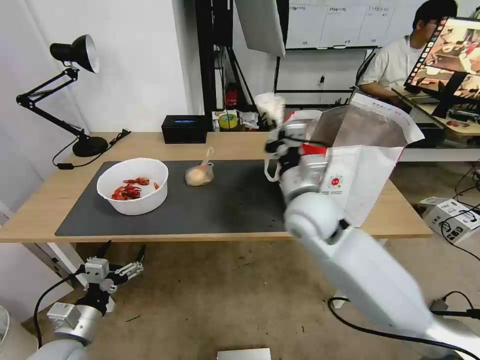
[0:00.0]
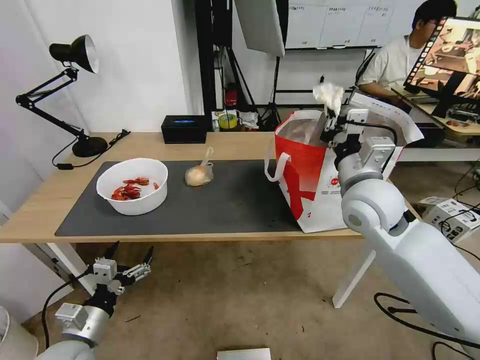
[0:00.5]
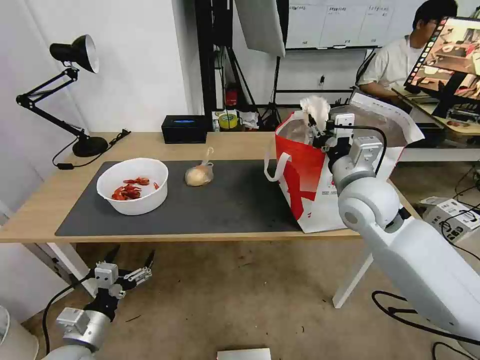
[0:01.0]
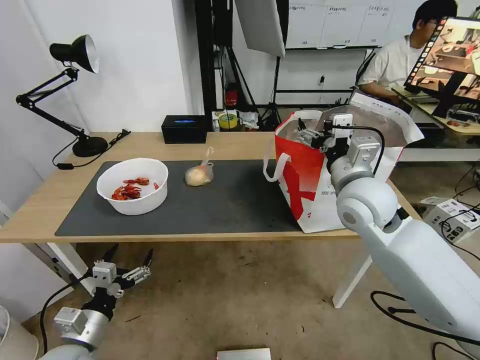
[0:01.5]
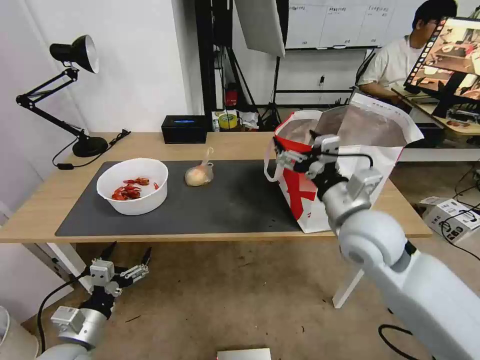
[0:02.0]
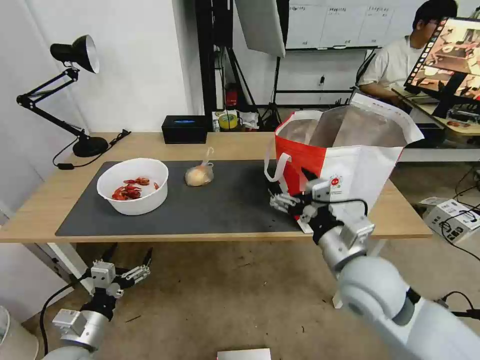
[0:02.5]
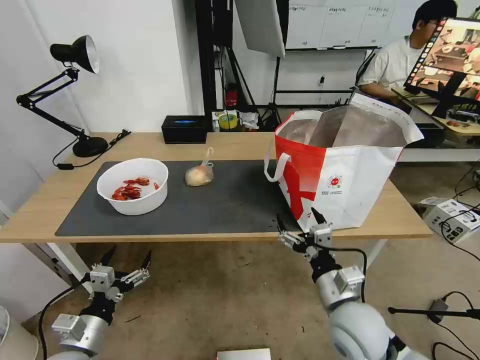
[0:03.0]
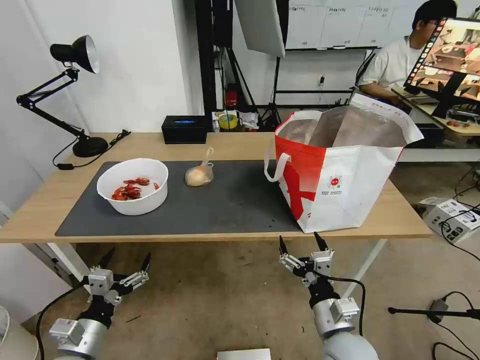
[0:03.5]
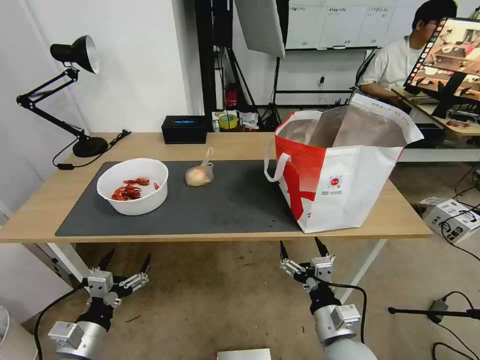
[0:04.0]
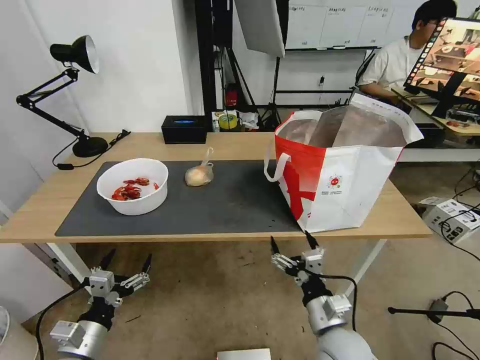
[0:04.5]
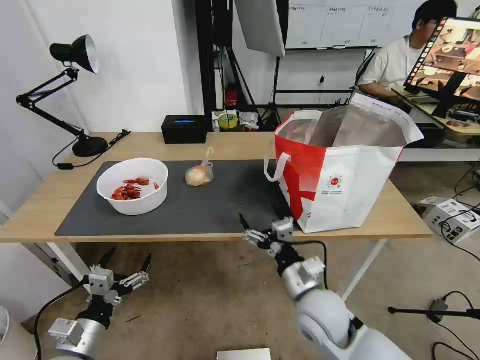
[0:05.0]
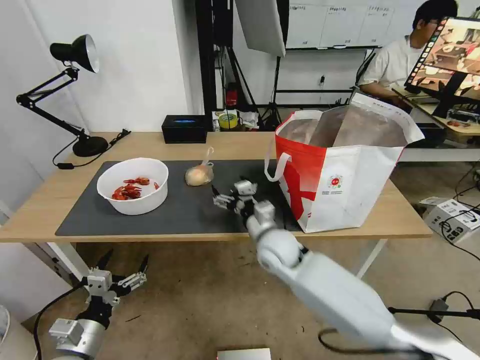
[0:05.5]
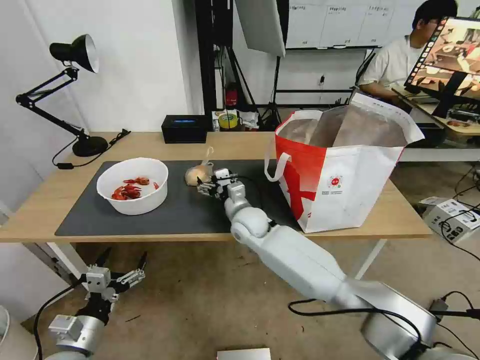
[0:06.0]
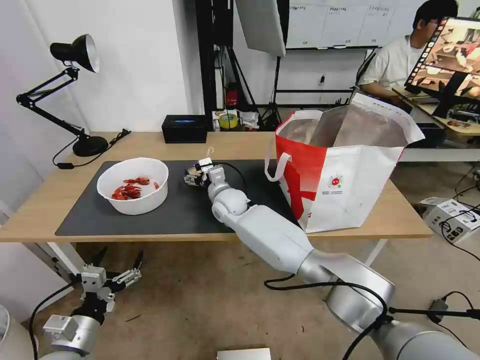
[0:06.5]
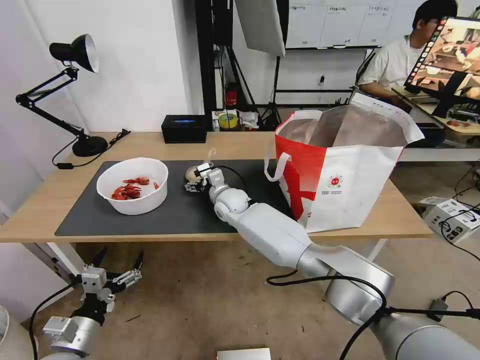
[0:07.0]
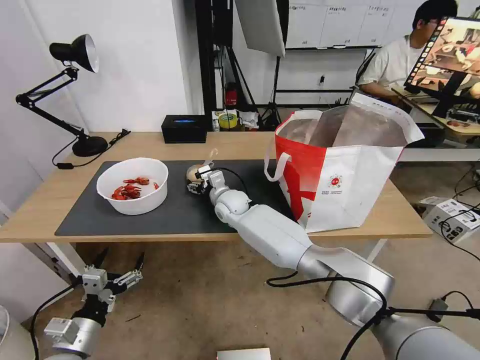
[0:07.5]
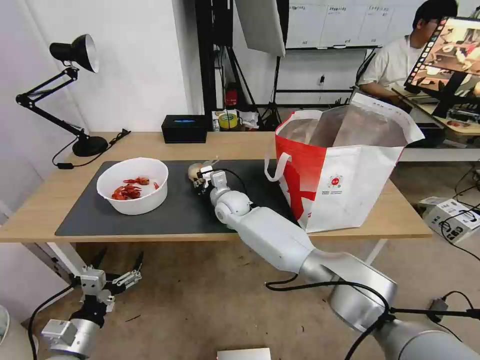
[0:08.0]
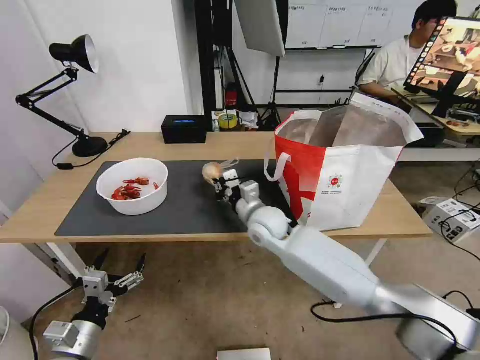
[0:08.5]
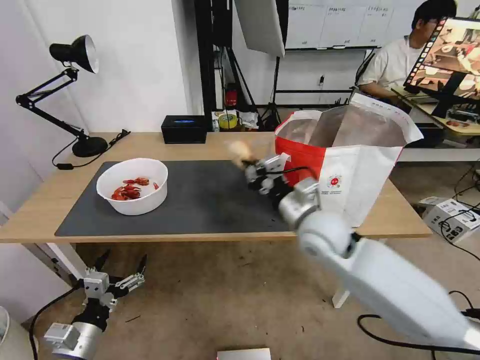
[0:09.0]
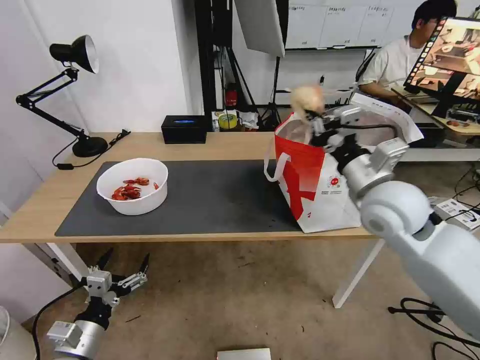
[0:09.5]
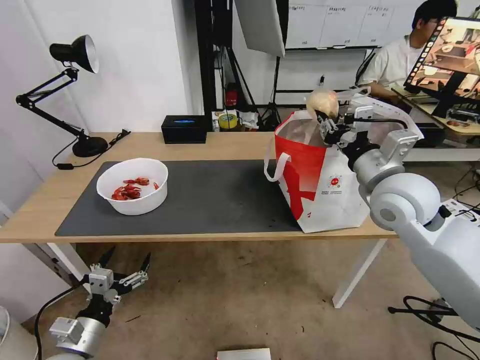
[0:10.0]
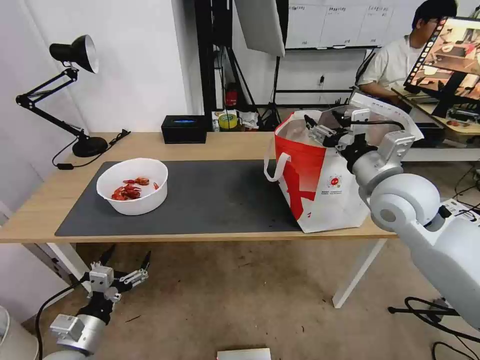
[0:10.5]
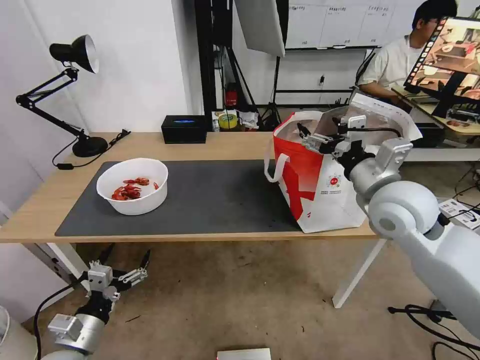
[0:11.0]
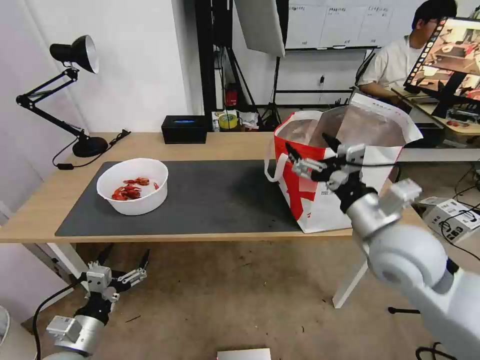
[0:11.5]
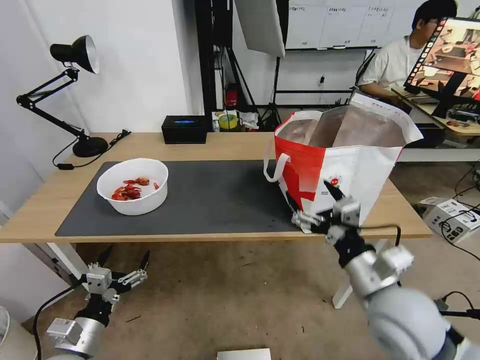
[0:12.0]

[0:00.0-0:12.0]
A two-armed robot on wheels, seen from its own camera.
Task of the whole recording: Pick up the trash from the table and place it into the takeout bag.
0:00.0 to 0:02.0: The right gripper shifts roughly 10 cm to the right and backward, and opens.
0:02.0 to 0:04.0: The right gripper heads downward and backward, covering roughly 25 cm.
0:04.0 to 0:06.0: The right gripper travels forward and to the left by roughly 35 cm.
0:06.0 to 0:08.0: The right gripper moves roughly 5 cm, and closes.
0:08.0 to 0:10.0: The right gripper is displaced to the right, upward and backward by approximately 40 cm.
0:10.0 to 0:12.0: The right gripper heads backward and downward, covering roughly 20 cm, and opens its fingers.

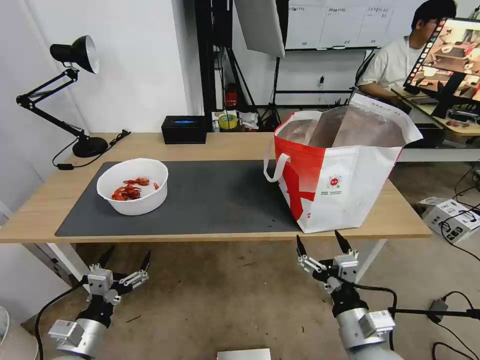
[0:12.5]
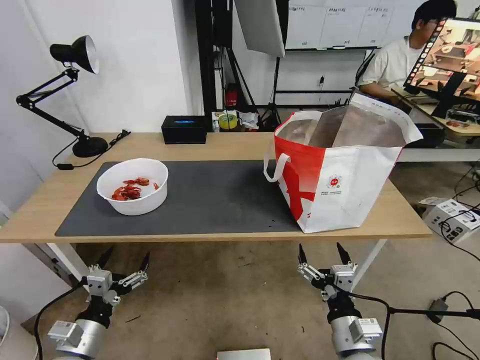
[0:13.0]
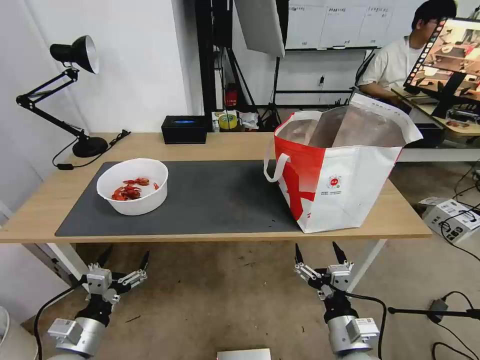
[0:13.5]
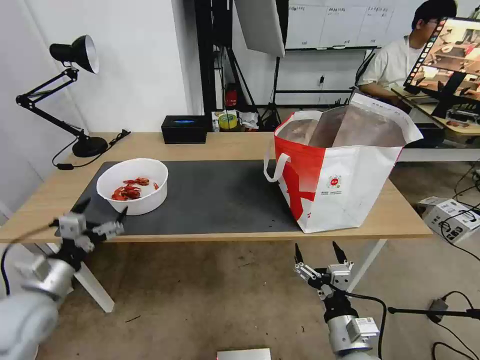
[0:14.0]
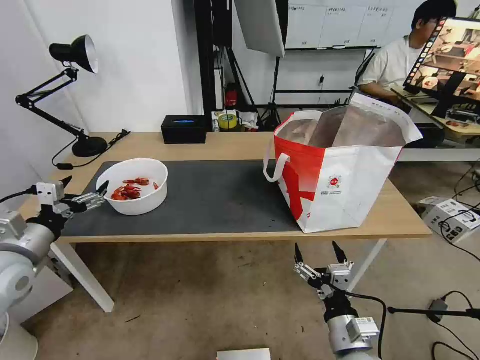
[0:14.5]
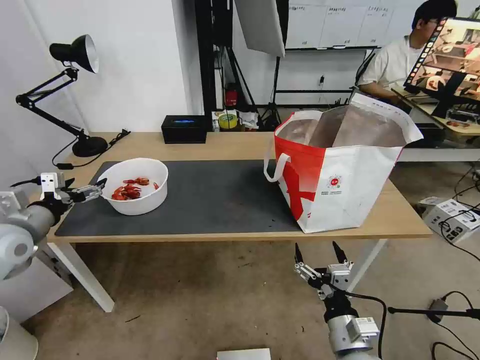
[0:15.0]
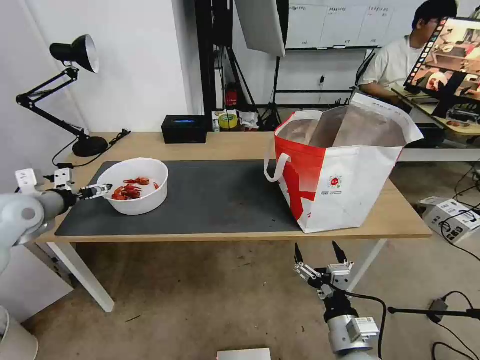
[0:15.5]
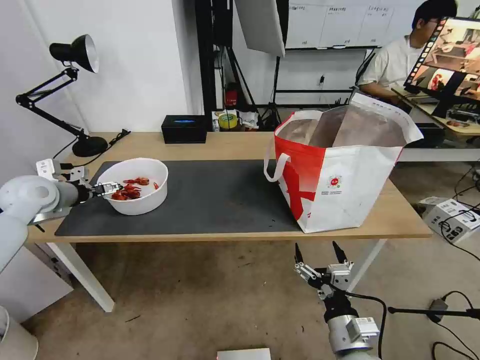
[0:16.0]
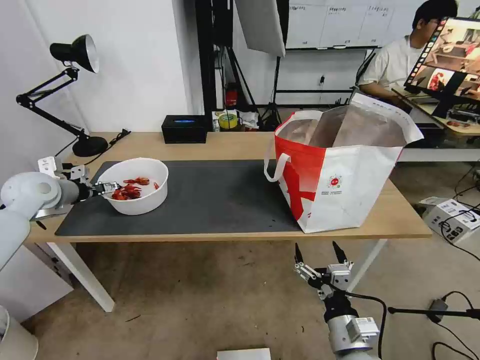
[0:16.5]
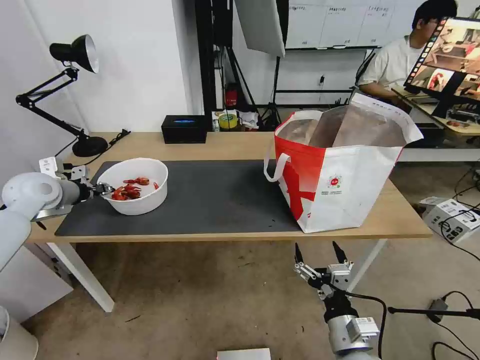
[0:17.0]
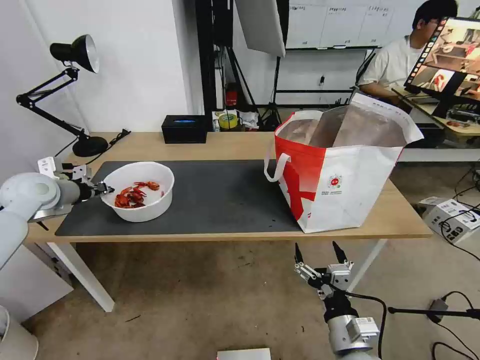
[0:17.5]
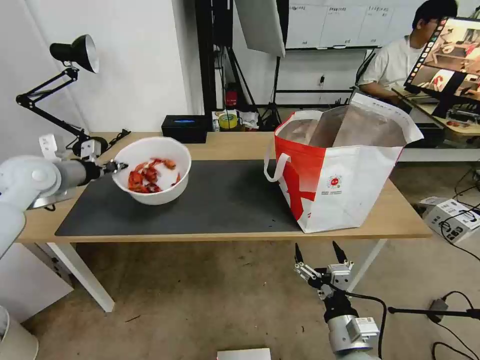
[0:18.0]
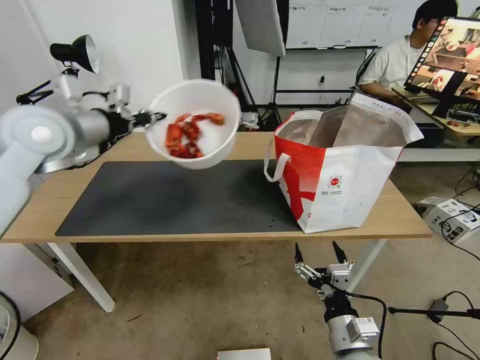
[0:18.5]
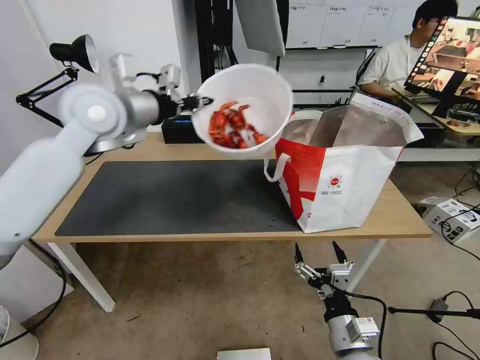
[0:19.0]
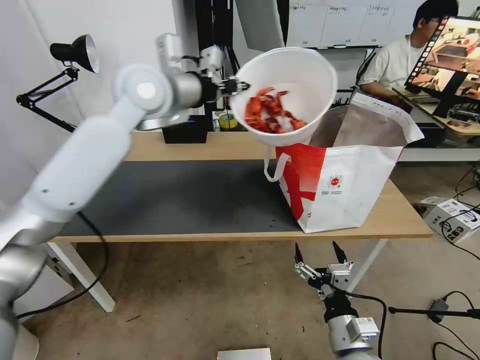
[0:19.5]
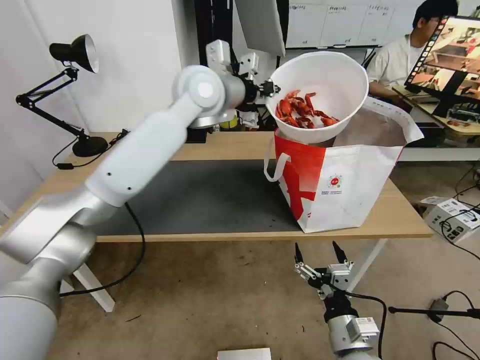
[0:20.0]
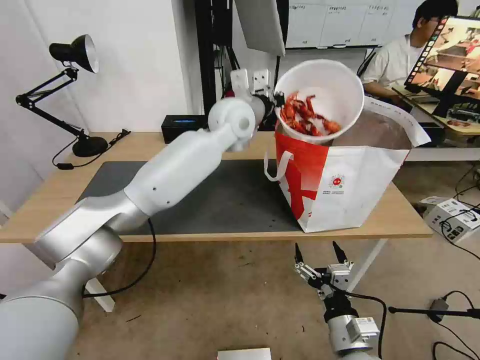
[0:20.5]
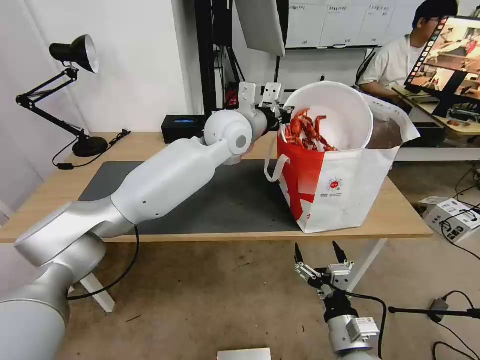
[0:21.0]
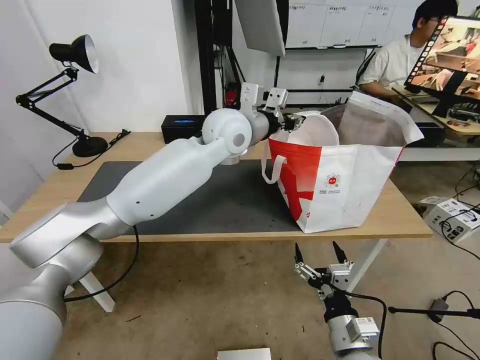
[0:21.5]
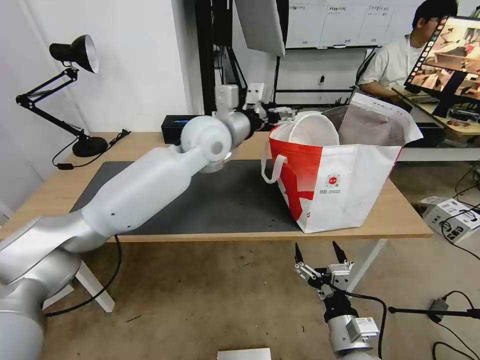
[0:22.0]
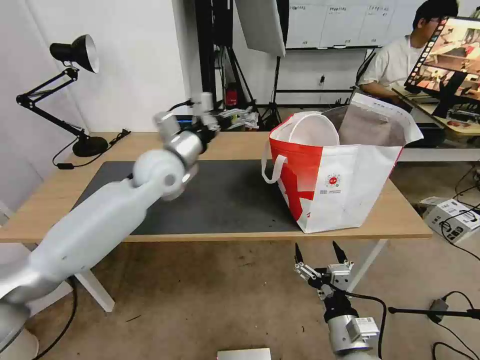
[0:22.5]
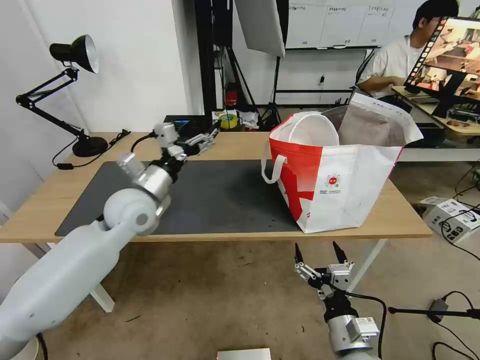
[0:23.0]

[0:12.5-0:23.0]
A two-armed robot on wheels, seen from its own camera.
Task of the whole recording: Pick up the trash from the table and place it into the takeout bag.
0:12.5 to 0:14.5: The left gripper shifts some 20 cm upward, forward and to the left.
0:14.5 to 0:16.5: The left gripper heads forward, covering roughly 15 cm.
0:16.5 to 0:19.0: The left gripper shifts some 30 cm to the right and upward, and closes.
0:19.0 to 0:21.0: The left gripper heads to the right, covering about 20 cm.
0:21.0 to 0:23.0: The left gripper heads to the left, downward and backward, covering some 25 cm, and opens its fingers.

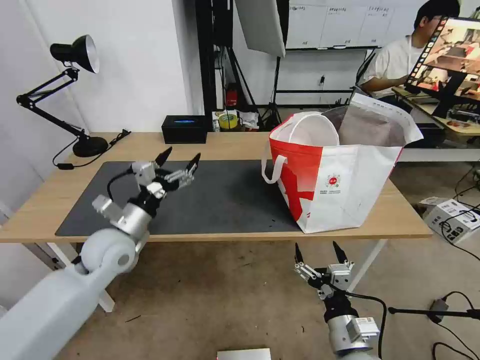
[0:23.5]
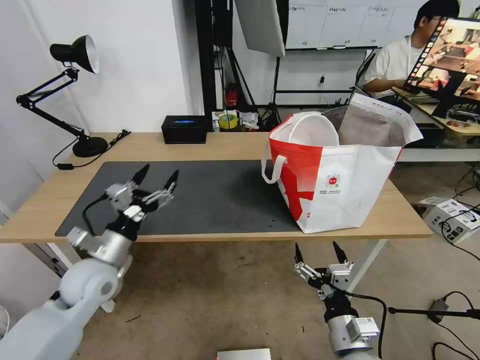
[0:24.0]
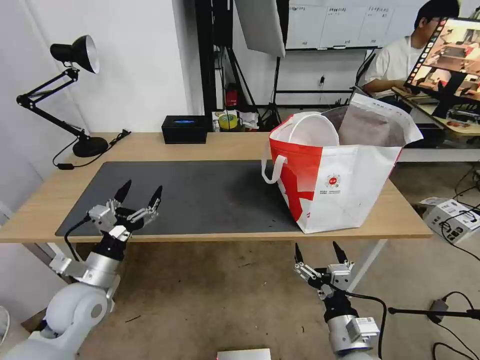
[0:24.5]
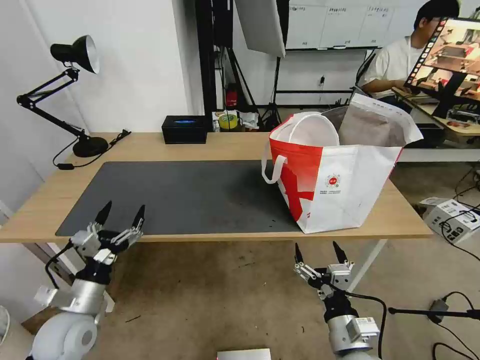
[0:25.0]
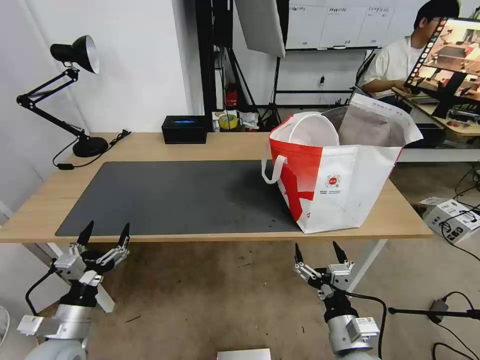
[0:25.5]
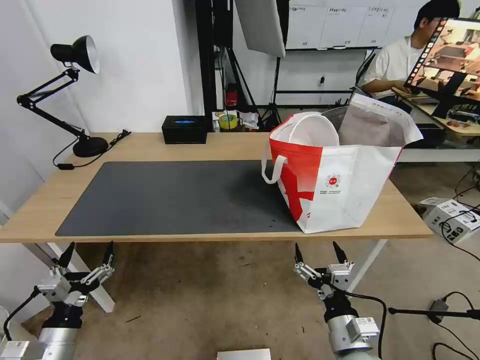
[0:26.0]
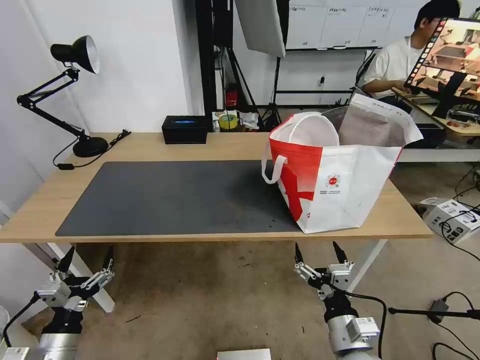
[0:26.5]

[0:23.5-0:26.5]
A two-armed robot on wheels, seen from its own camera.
Task of the whole recording: Pick up the trash from the table and place it into the takeout bag.
0:23.5 to 0:25.0: The left gripper heads backward, downward and to the left, covering about 20 cm.
0:25.0 to 0:26.5: The left gripper heads backward, covering approximately 10 cm.
